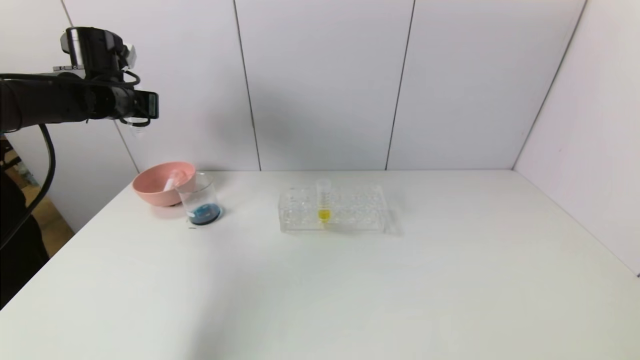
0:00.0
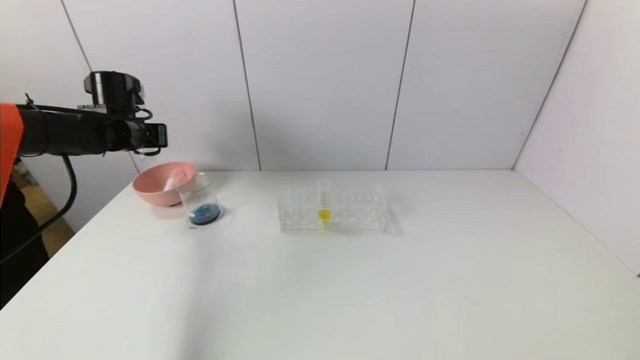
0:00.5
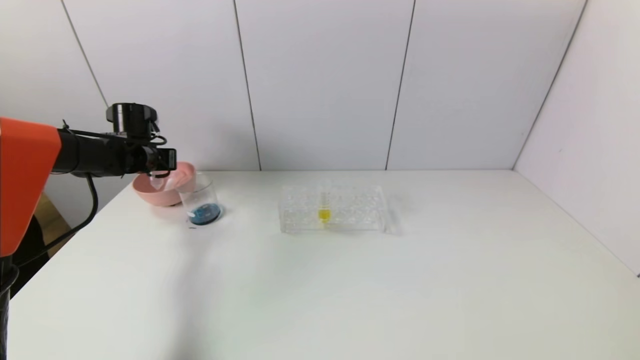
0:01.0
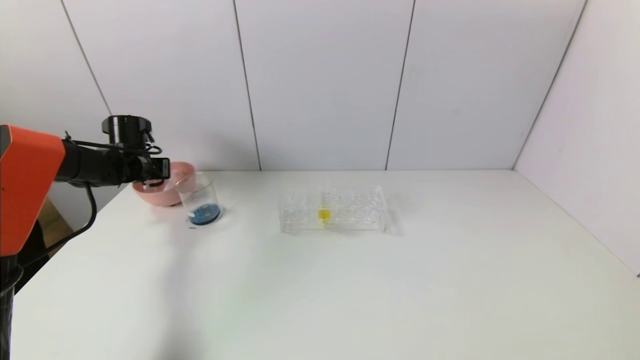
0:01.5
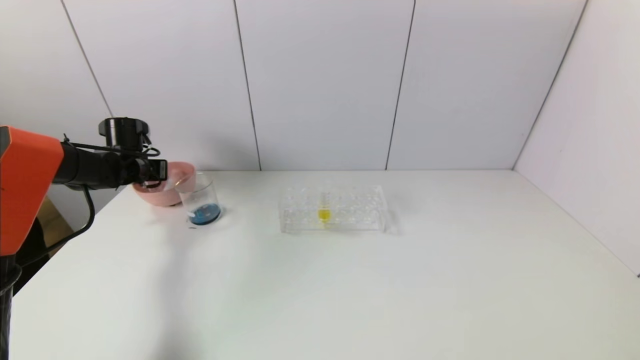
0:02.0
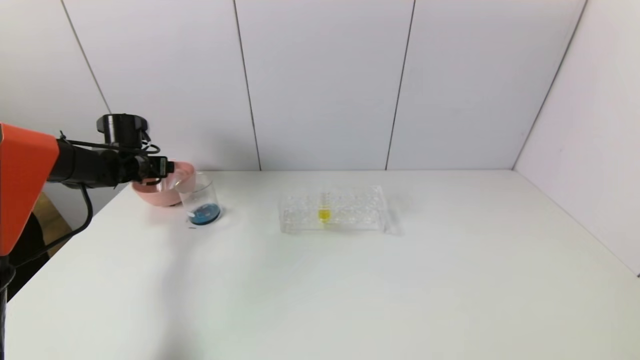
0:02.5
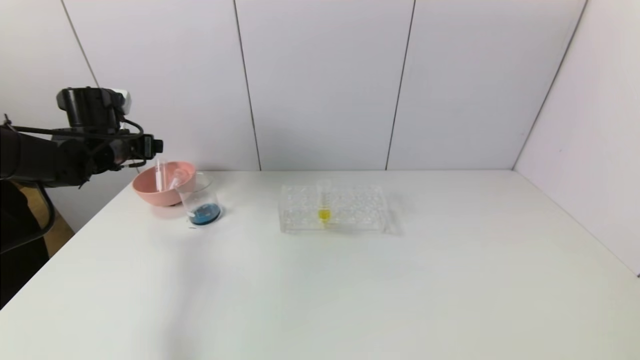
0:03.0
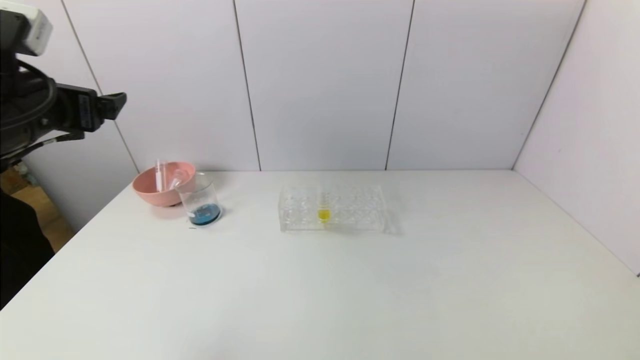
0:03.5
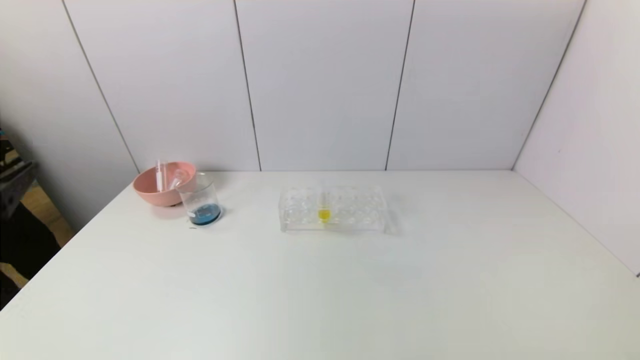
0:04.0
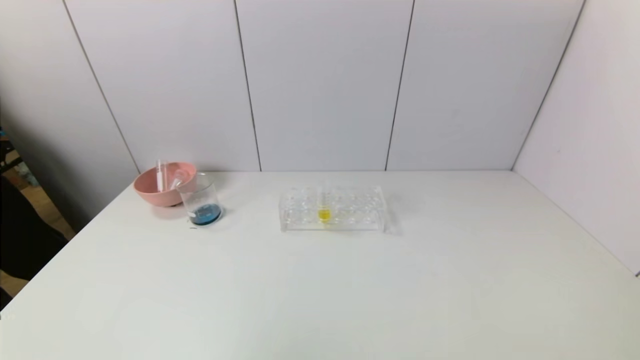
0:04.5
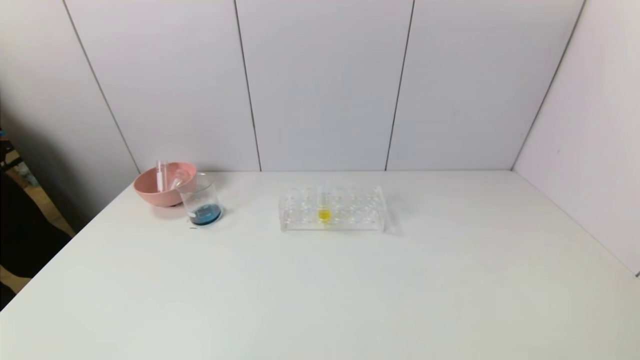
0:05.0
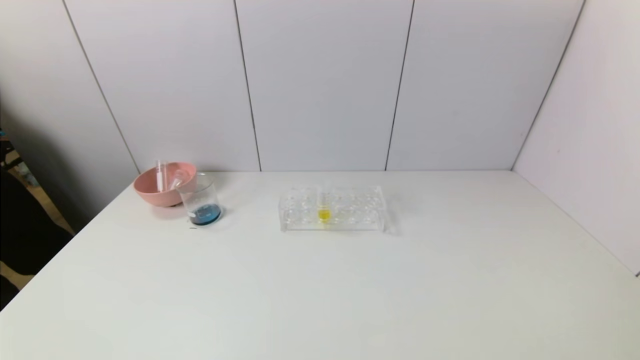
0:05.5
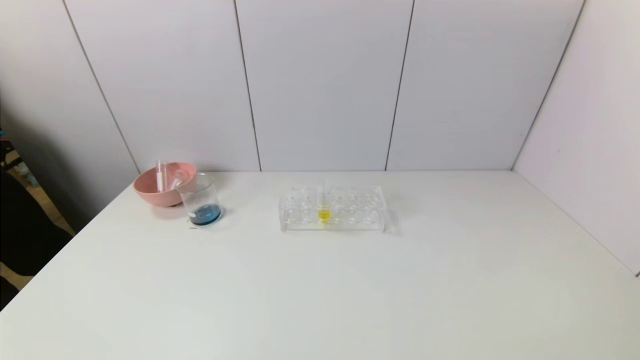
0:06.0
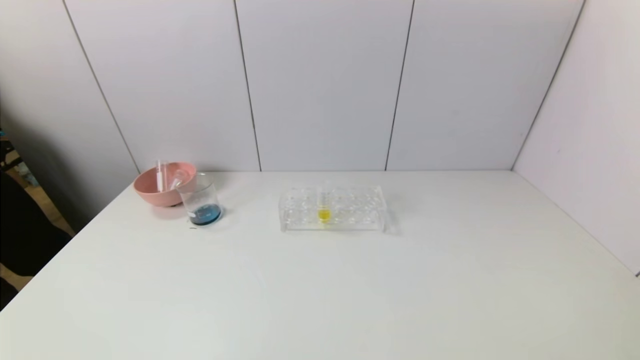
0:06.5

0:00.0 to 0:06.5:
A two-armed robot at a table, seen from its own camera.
Task of the whole recording: pick up the test tube with red pigment and the test tube with blue pigment by grippers and pour them into the container.
Step, 0:00.0 to 0:03.5: Place the test tube into the bowl with the left gripper.
0:00.0 to 0:02.0: The left gripper shifts about 15 cm downward.
0:02.0 to 0:04.5: The left gripper is displaced backward by roughly 50 cm, and opens its fingers.
